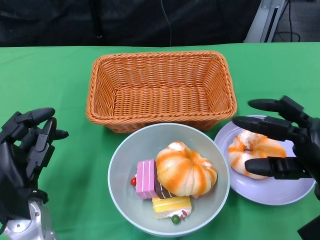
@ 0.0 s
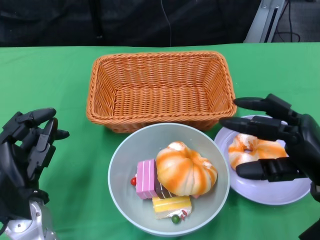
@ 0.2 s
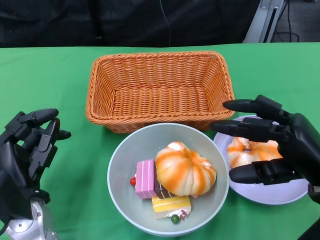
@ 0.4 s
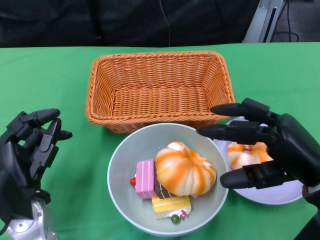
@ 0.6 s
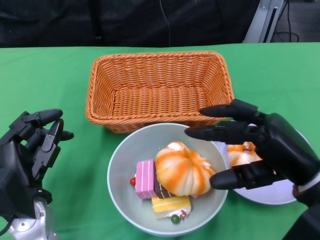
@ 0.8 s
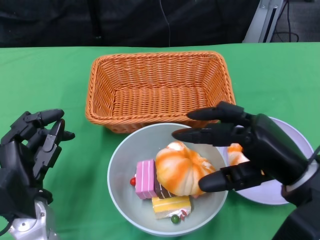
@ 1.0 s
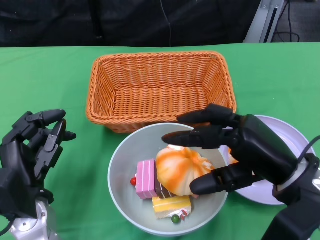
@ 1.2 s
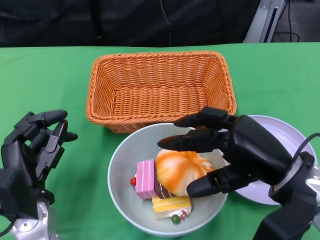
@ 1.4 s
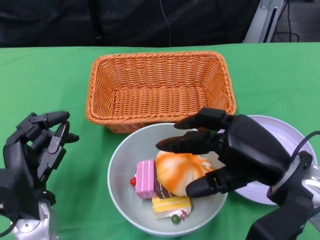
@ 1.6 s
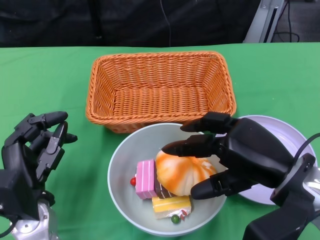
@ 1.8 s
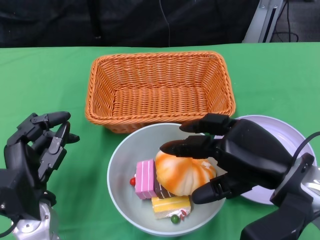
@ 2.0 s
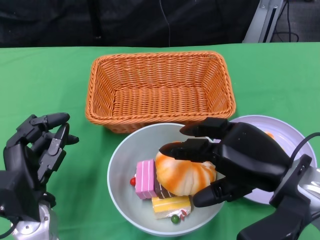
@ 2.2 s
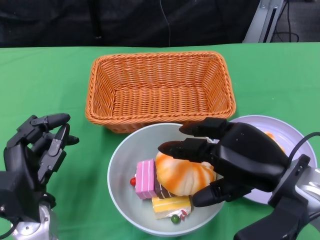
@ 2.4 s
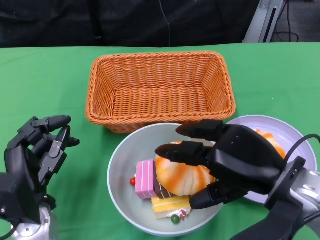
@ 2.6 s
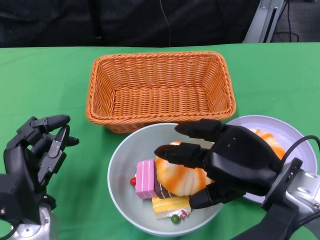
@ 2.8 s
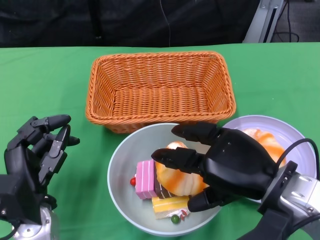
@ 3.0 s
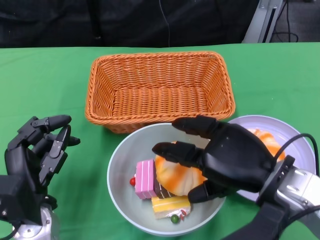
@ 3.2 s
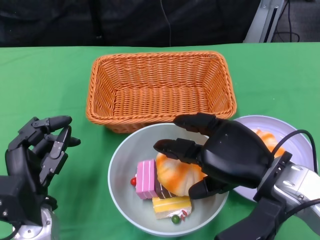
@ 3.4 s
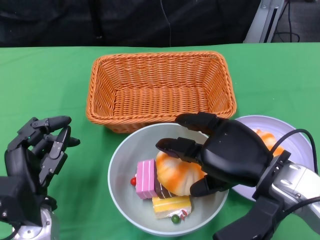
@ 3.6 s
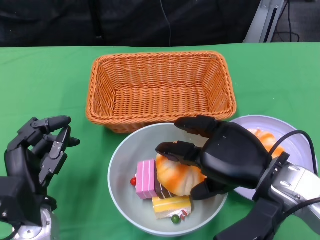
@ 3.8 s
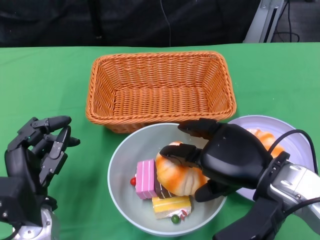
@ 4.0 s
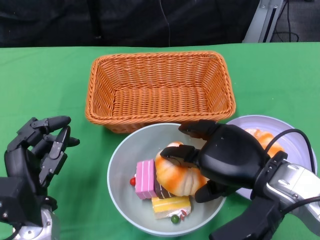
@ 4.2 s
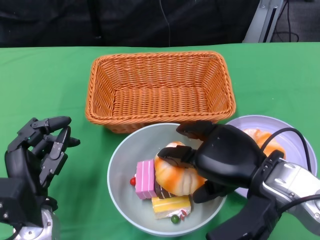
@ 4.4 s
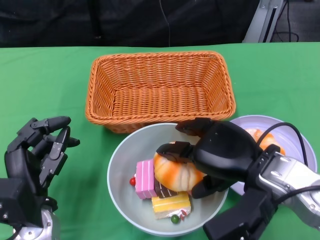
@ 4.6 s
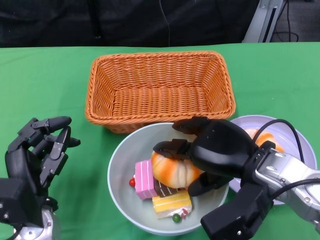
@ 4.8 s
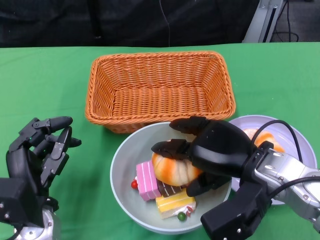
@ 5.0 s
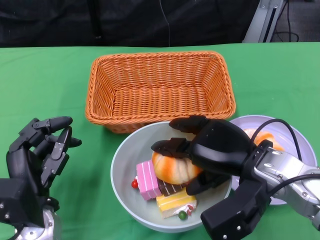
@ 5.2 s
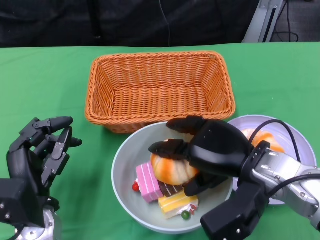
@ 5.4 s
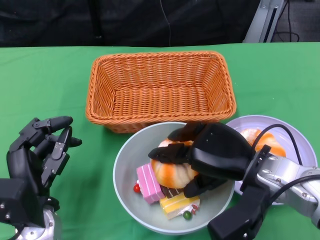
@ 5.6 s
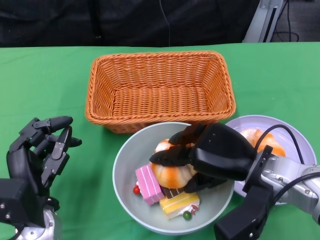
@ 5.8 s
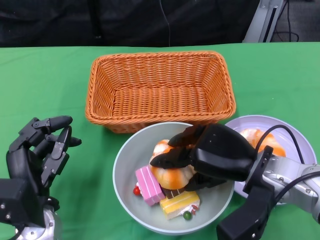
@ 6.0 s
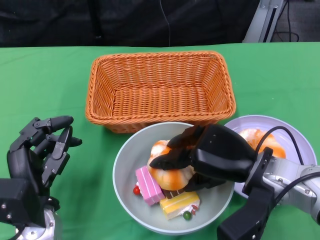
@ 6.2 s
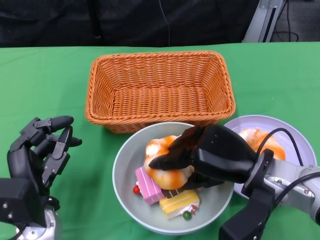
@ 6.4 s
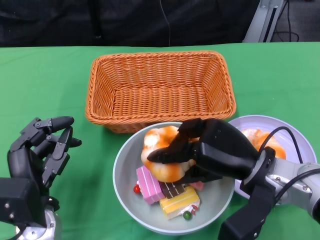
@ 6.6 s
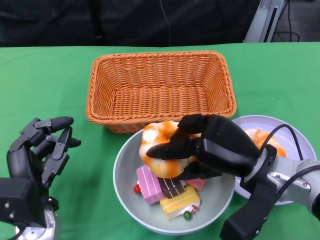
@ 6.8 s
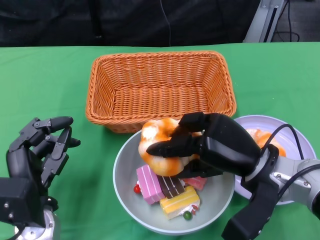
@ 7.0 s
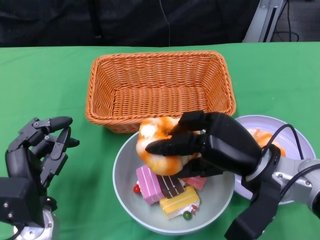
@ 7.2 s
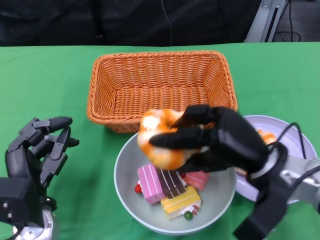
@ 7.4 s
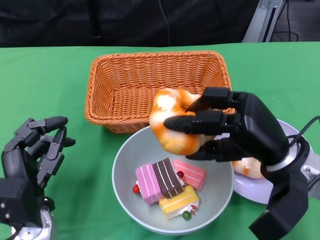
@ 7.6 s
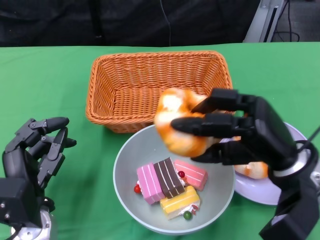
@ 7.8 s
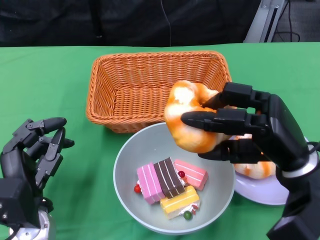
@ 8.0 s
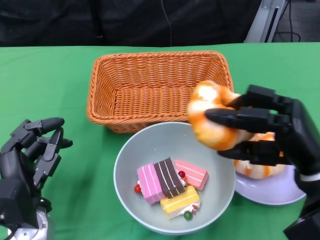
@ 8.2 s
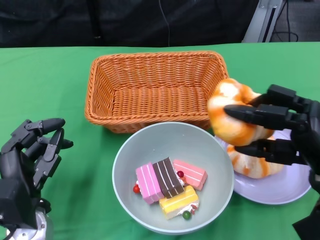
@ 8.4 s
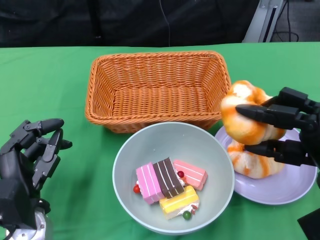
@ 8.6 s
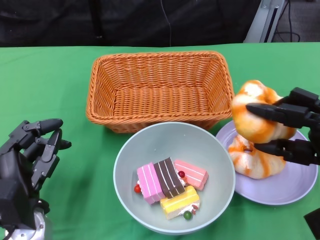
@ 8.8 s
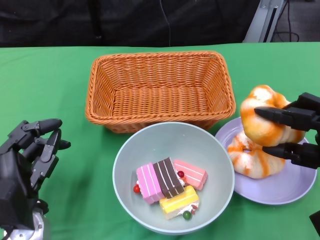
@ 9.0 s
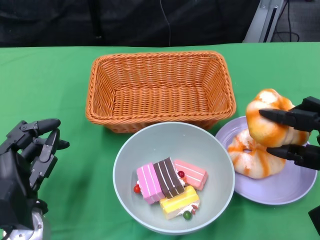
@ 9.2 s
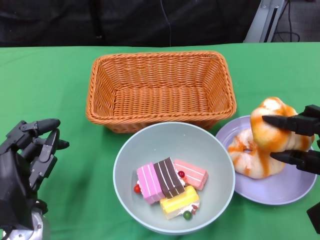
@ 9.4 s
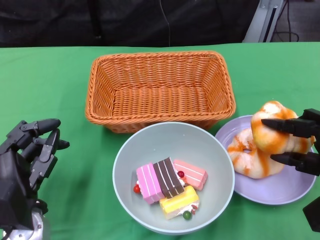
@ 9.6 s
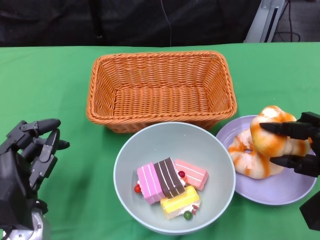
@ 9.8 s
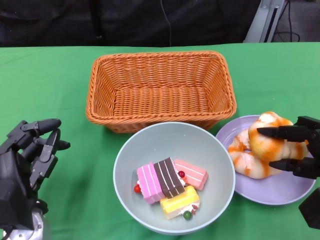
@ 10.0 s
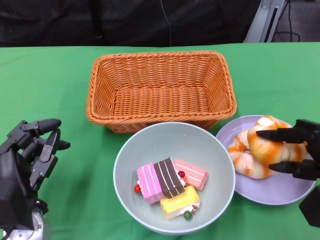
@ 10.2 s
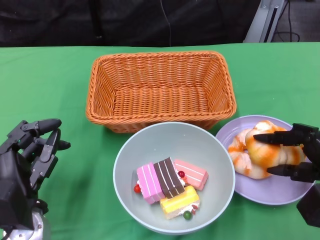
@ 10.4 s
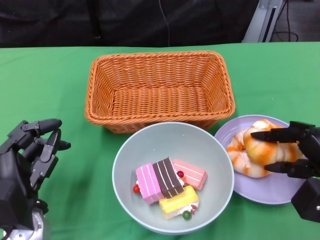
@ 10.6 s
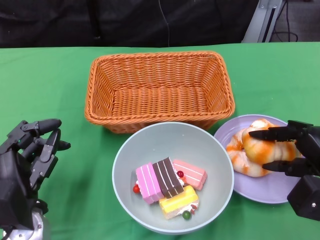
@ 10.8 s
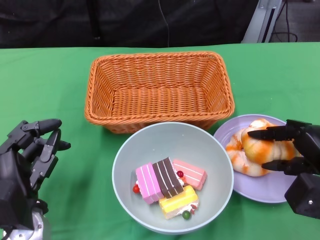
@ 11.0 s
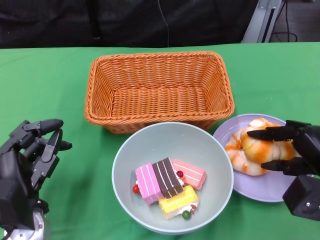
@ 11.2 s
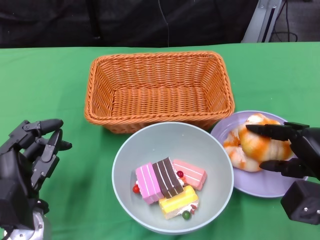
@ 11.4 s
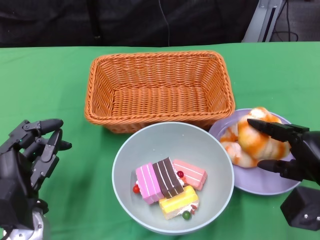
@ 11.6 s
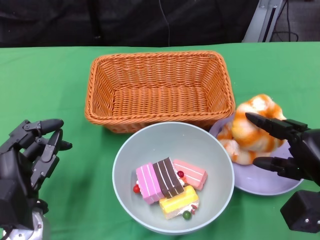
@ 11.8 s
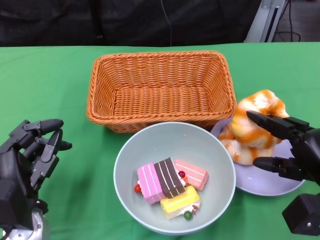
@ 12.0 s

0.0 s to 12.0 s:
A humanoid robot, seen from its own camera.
0.0 to 1.6 s: The right hand is displaced to the left and upward by about 10 cm.
3.0 to 4.4 s: There are only small adjustments of the hands.
4.4 to 6.0 s: The hands make only small movements.
7.6 to 9.0 s: The right hand travels to the right by about 10 cm.
10.4 to 12.0 s: The hands stay close to where they were, moving slightly.

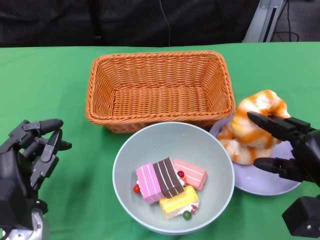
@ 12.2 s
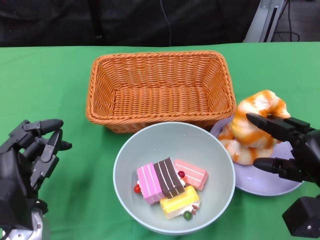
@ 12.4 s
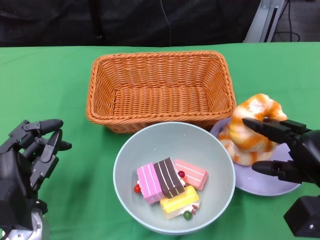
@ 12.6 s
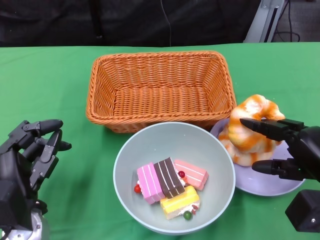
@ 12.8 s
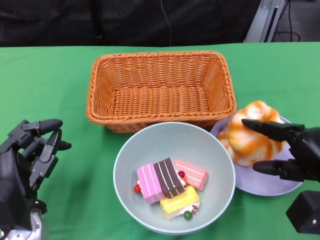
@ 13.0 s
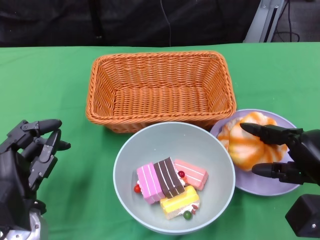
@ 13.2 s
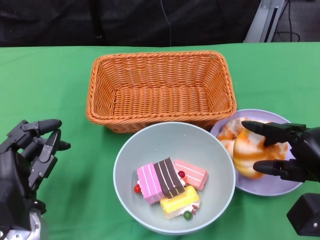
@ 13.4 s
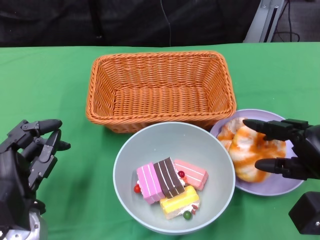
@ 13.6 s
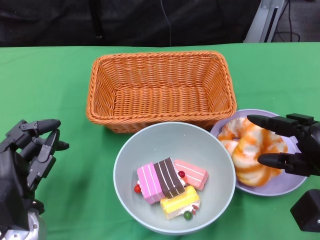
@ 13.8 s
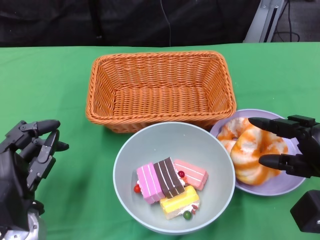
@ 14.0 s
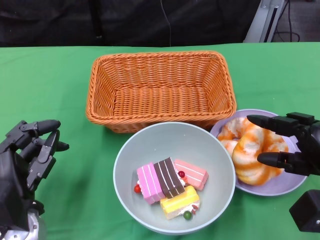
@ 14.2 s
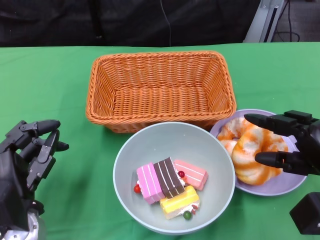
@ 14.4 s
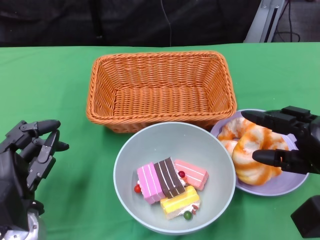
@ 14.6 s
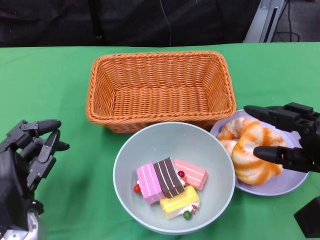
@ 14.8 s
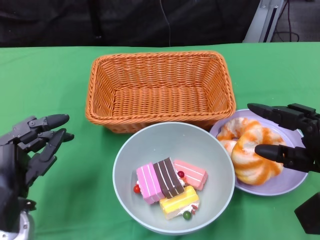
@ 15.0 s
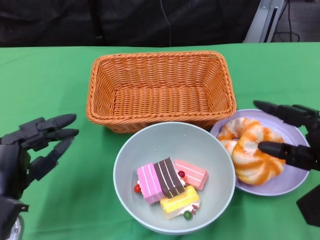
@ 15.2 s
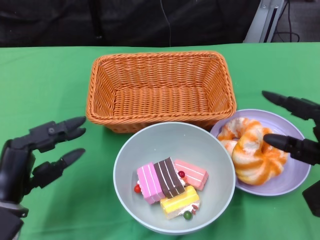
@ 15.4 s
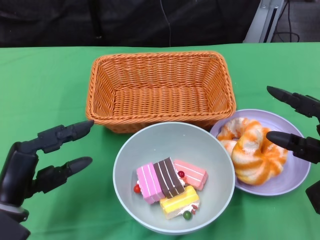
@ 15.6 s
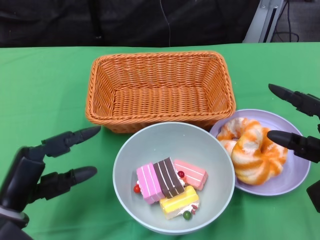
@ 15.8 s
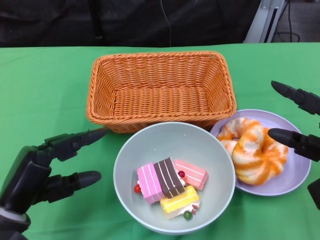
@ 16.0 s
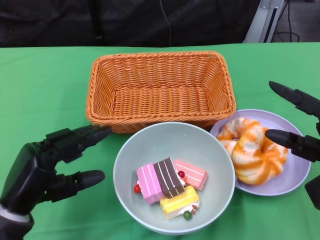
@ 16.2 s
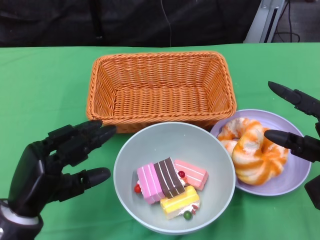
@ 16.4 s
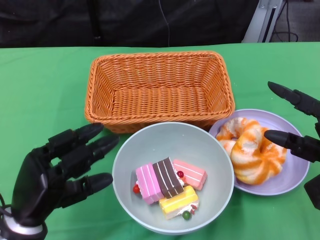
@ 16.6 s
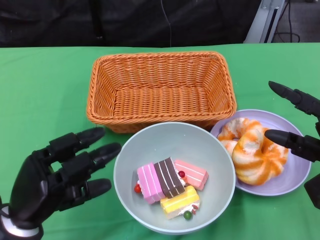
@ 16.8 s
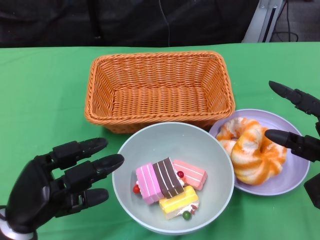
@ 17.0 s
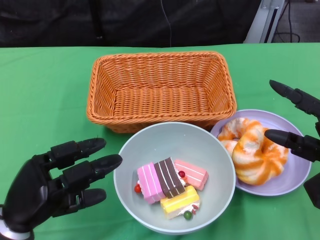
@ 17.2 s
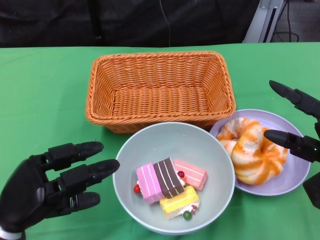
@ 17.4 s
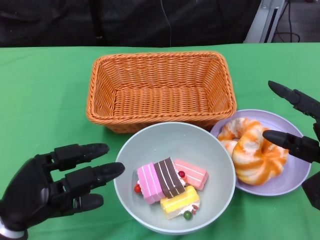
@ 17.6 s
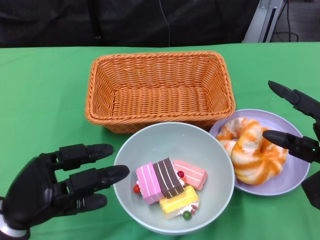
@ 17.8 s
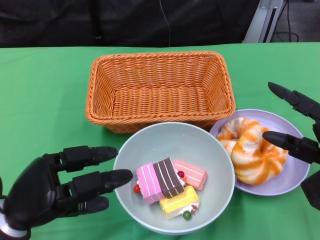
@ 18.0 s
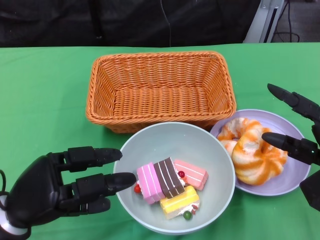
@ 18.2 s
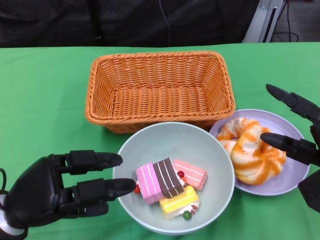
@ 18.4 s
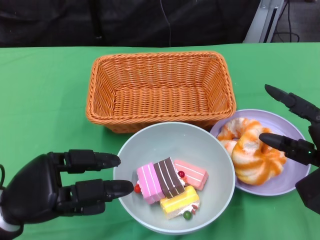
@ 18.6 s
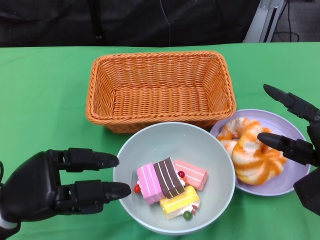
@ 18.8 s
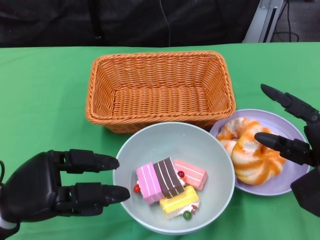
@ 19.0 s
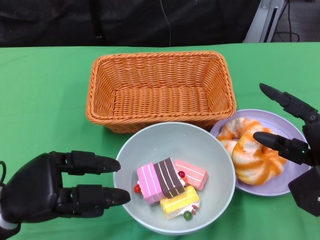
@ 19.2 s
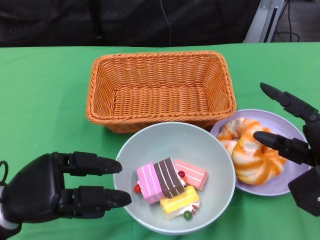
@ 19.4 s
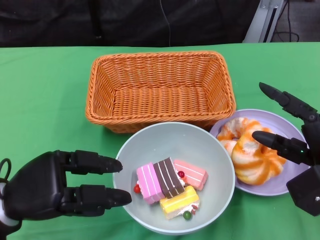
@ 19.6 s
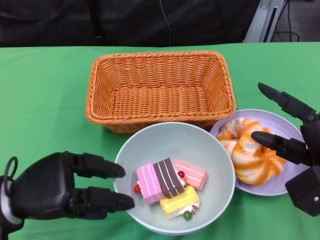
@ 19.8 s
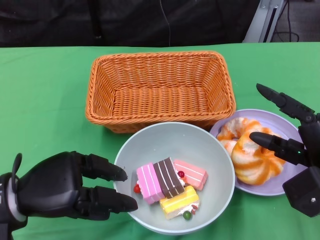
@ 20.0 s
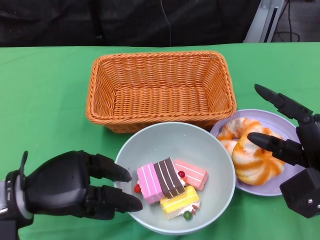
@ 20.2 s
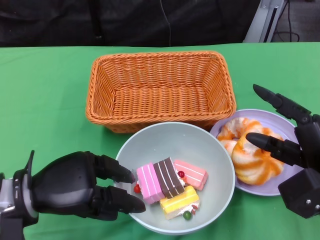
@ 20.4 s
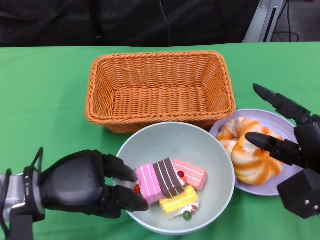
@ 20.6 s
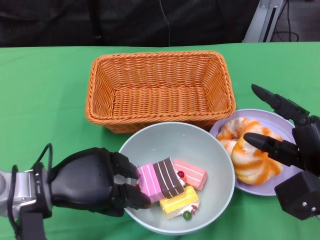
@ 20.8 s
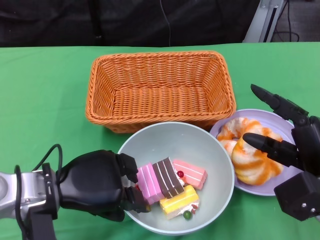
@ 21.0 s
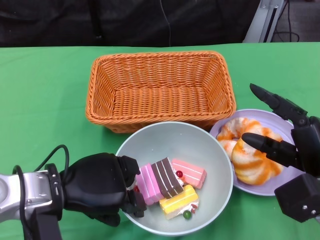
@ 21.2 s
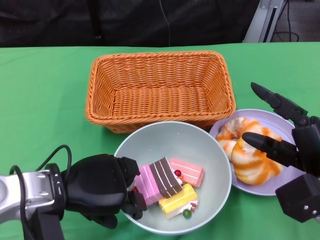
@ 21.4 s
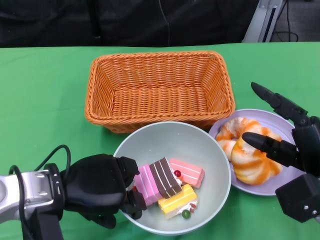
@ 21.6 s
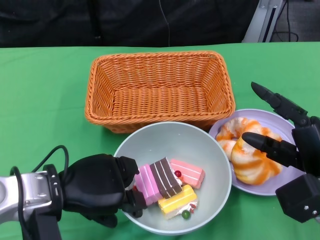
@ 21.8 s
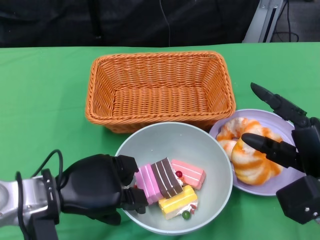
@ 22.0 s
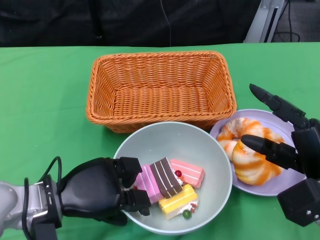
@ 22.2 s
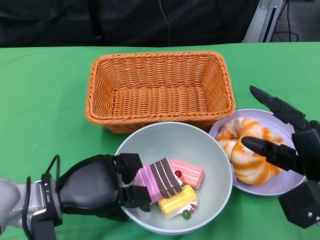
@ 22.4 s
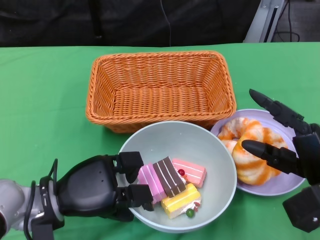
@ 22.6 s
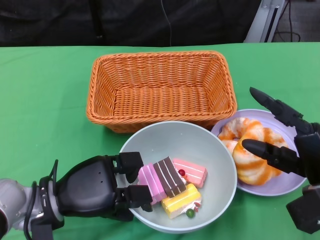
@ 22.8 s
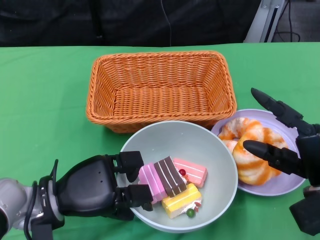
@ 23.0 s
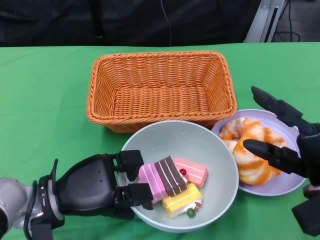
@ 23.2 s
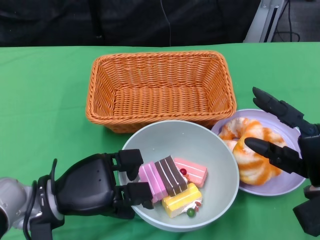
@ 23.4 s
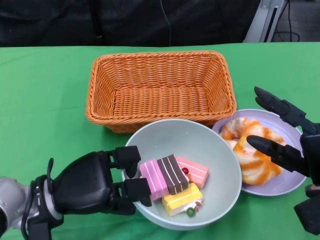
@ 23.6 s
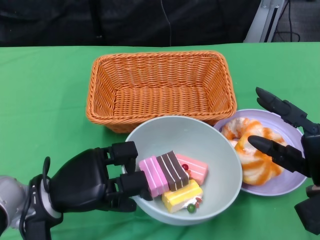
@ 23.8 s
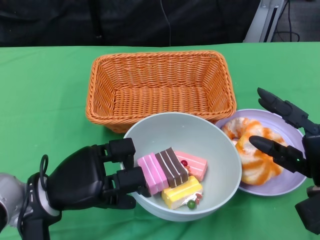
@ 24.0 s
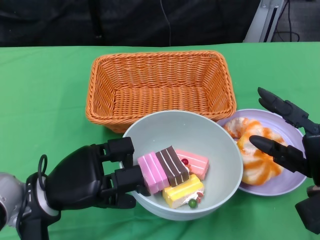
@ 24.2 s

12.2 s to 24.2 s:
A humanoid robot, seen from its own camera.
Step, 12.2 to 15.4 s: Pick up the bread with the right gripper and place it on the plate.
Step, 15.6 to 22.4 s: Grasp the bowl with the left gripper.
12.2 to 13.8 s: The hands make only small movements.
18.2 to 19.8 s: The hands make only small movements.
19.8 to 21.2 s: The left hand is displaced to the right by some 5 cm.
21.2 to 22.6 s: The left hand ends up roughly 5 cm from where it was.
